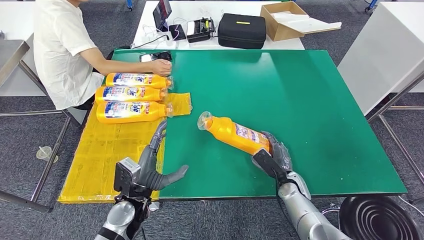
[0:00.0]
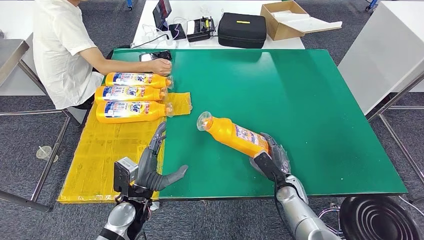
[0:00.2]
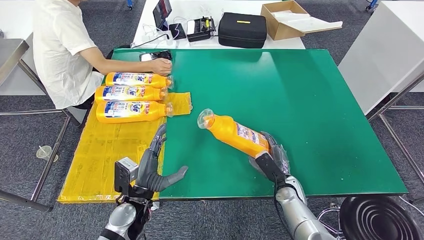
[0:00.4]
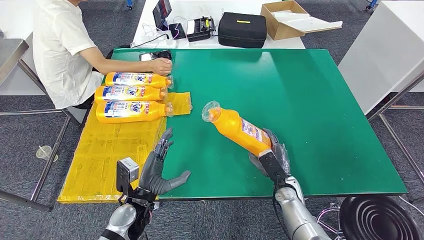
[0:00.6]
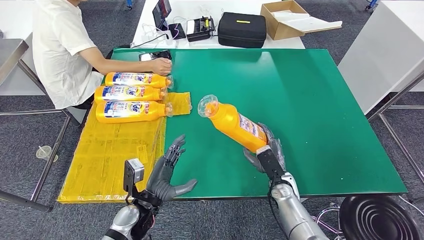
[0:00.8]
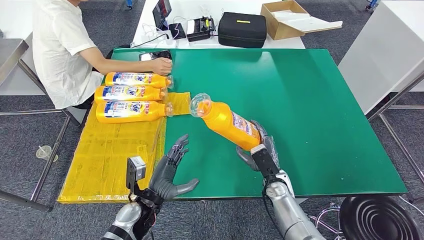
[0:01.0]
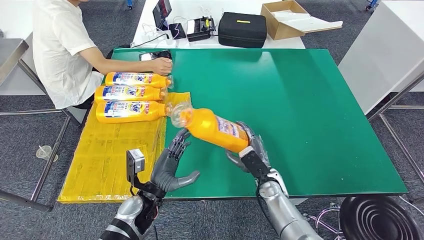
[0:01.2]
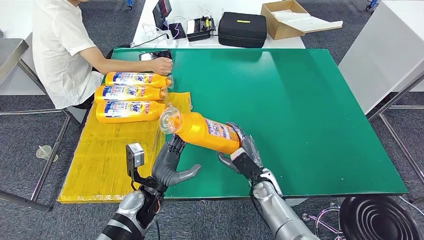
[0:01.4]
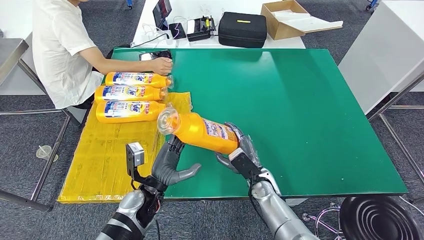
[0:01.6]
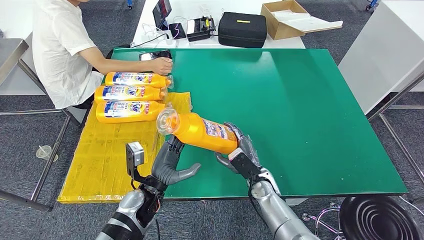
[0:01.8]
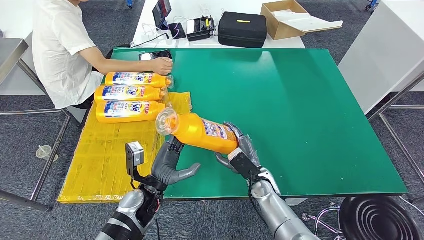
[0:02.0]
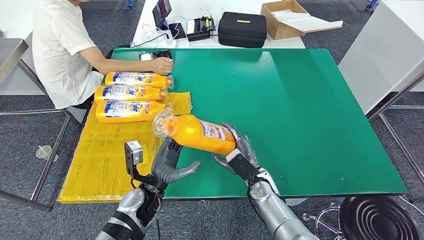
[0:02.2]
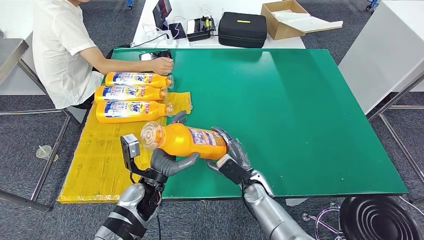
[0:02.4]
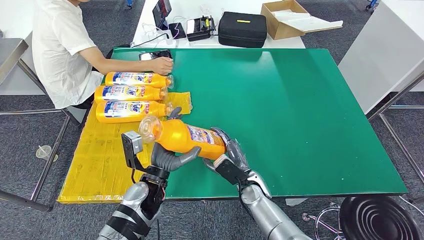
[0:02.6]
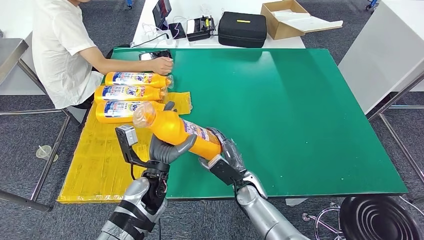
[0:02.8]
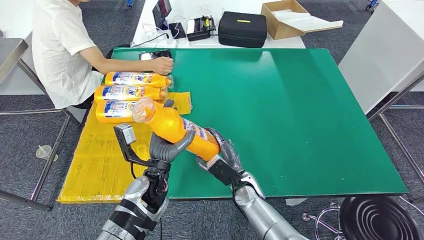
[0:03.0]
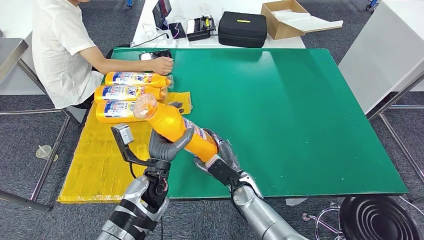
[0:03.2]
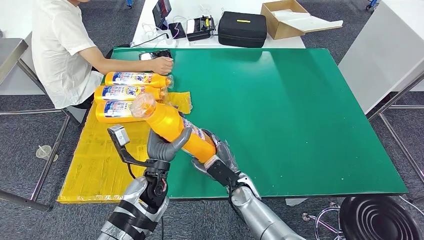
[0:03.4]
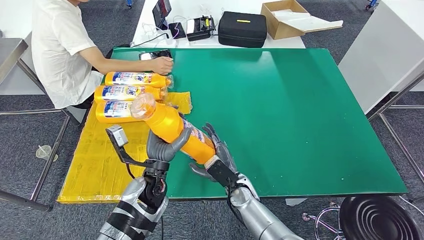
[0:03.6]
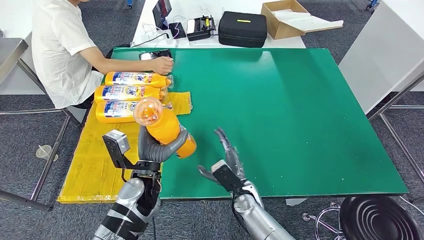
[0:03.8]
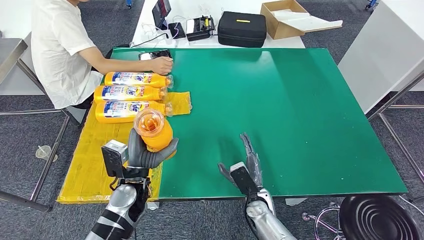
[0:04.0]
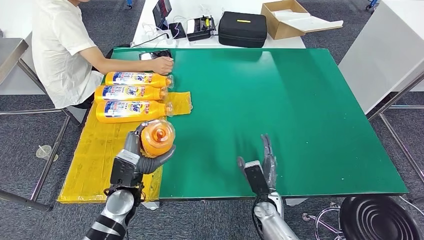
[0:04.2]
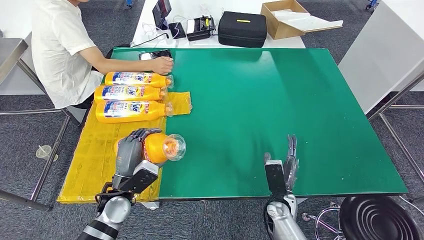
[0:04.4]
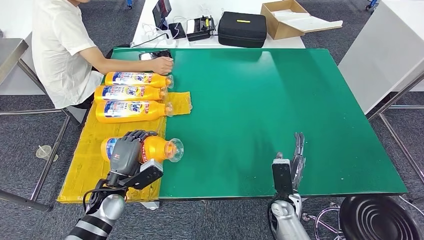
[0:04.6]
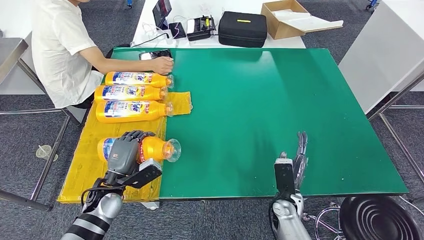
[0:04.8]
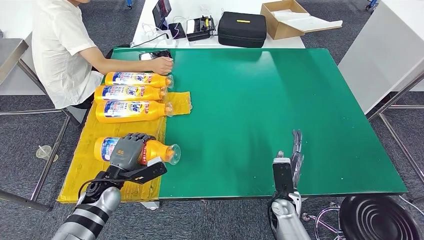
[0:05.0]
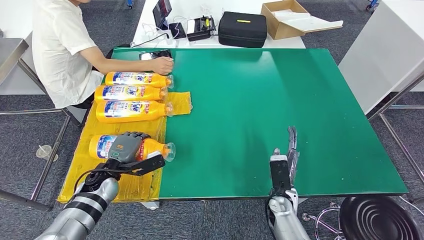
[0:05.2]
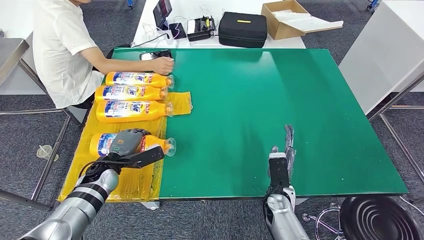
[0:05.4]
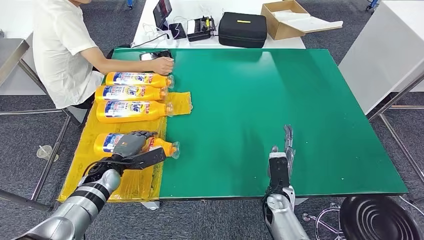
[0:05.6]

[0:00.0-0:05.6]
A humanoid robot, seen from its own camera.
Step, 0:00.0 to 0:02.2: Pick up the fast-moving consumer goods bottle from the table.
Step, 0:02.4 to 0:05.4: Flip the fast-moving consumer goods bottle to the front side.
0:00.0 to 0:01.4: The right hand travels to the left by some 10 cm.
0:01.4 to 0:02.8: The right hand moves roughly 5 cm.
0:02.8 to 0:04.2: The right hand goes approximately 5 cm to the right; the left hand moves to the left, roughly 5 cm.
0:04.2 to 0:05.6: The left hand is displaced to the left and forward by some 10 cm.
